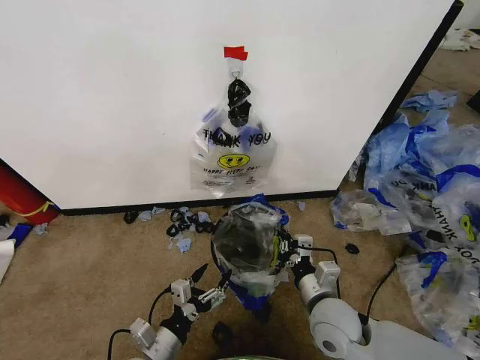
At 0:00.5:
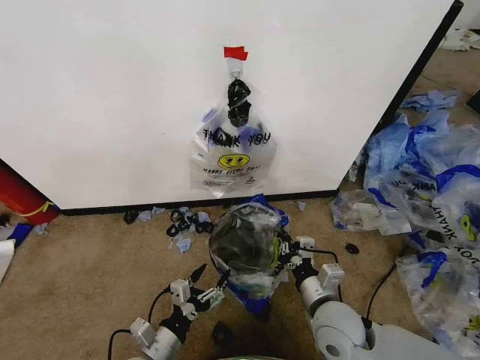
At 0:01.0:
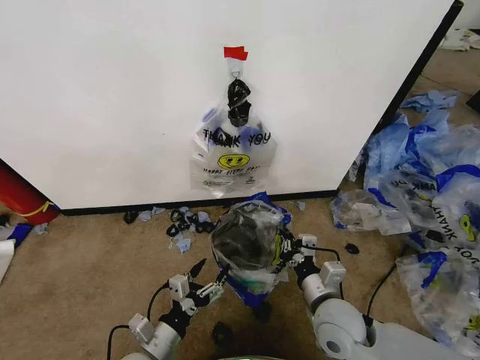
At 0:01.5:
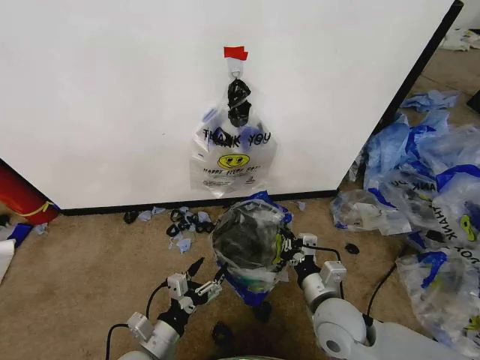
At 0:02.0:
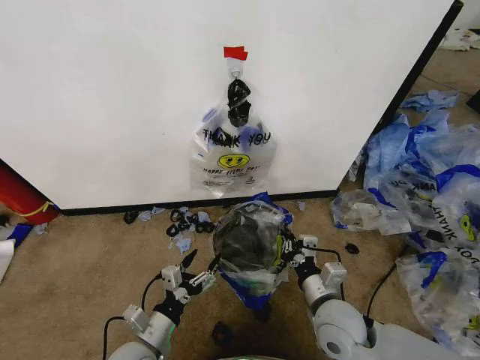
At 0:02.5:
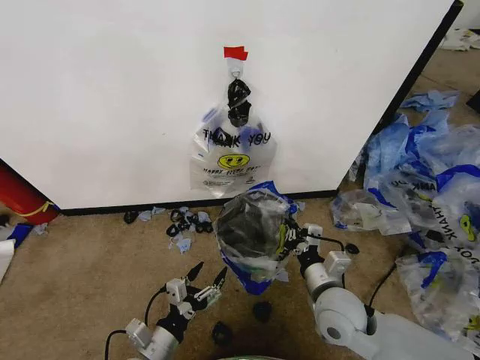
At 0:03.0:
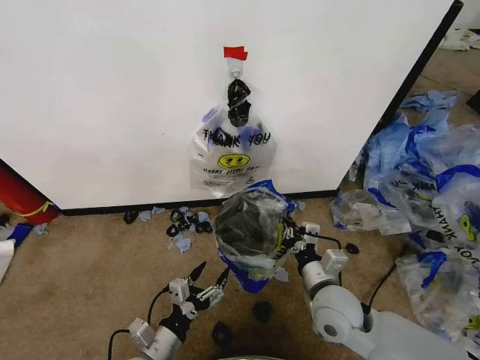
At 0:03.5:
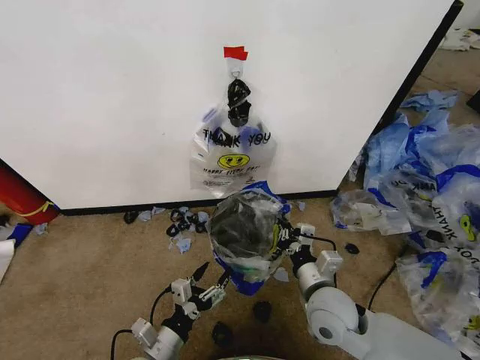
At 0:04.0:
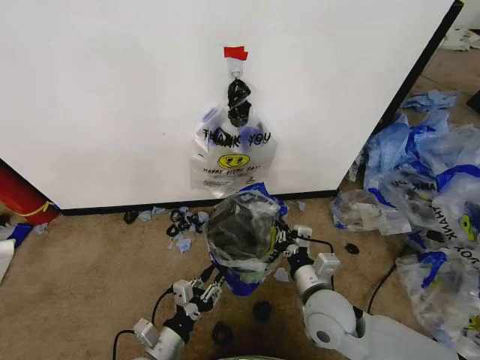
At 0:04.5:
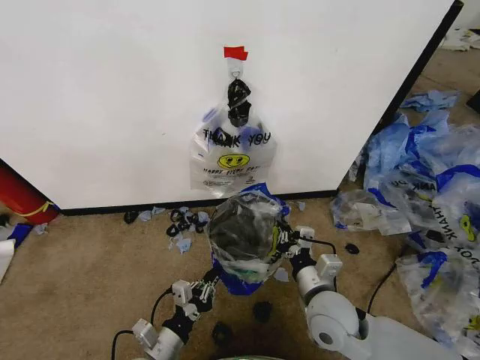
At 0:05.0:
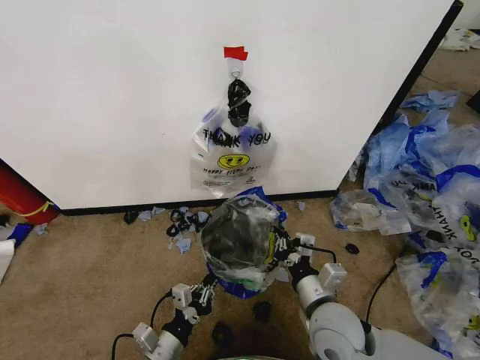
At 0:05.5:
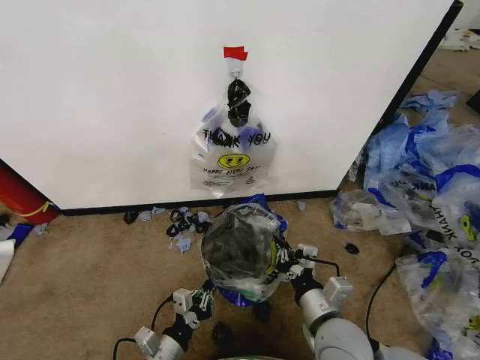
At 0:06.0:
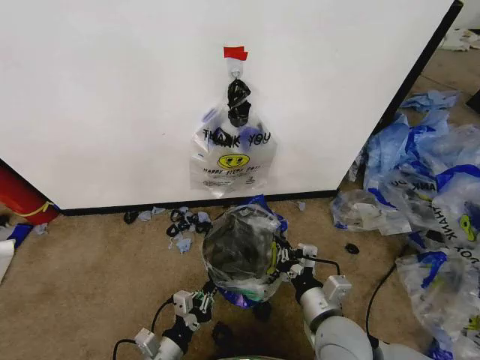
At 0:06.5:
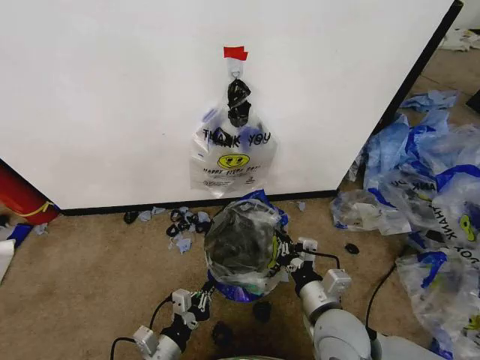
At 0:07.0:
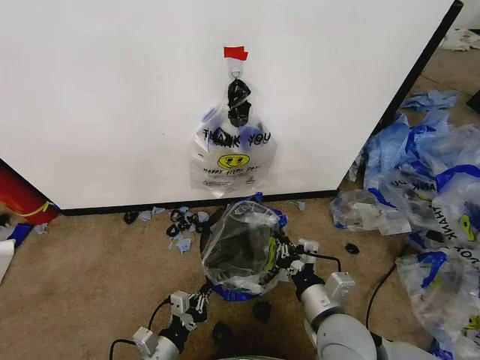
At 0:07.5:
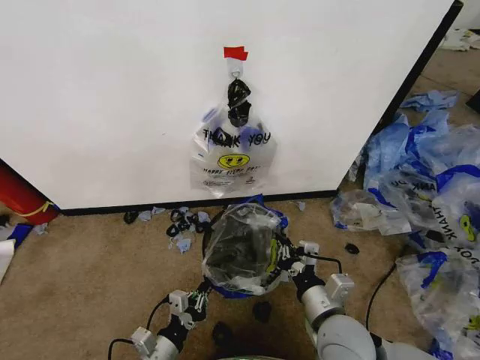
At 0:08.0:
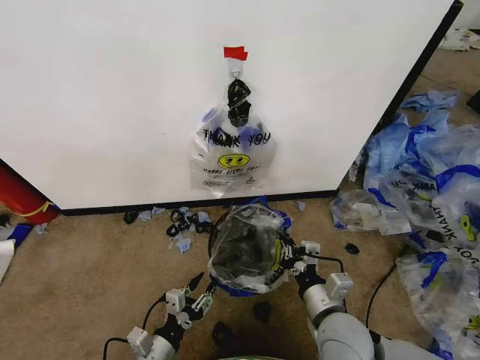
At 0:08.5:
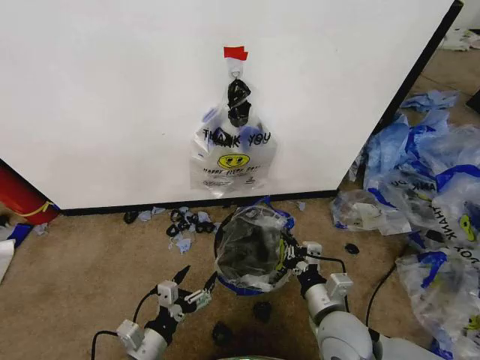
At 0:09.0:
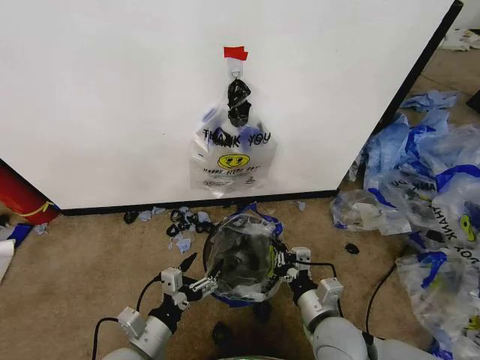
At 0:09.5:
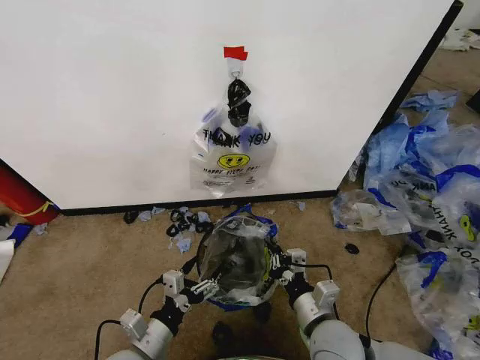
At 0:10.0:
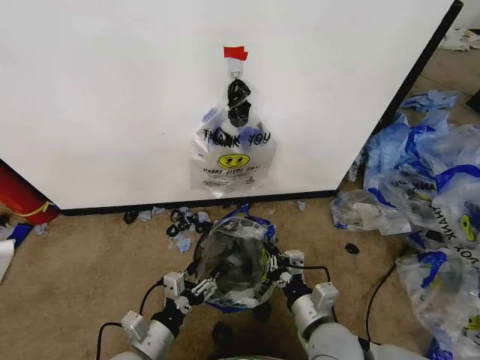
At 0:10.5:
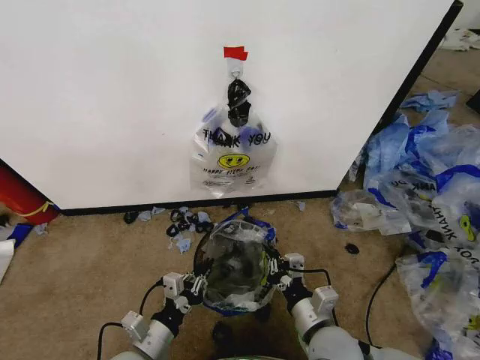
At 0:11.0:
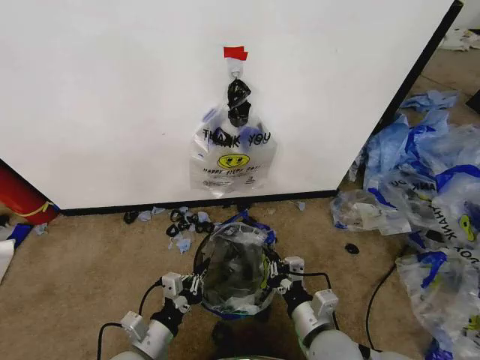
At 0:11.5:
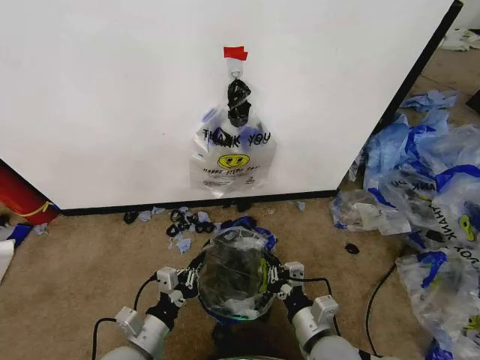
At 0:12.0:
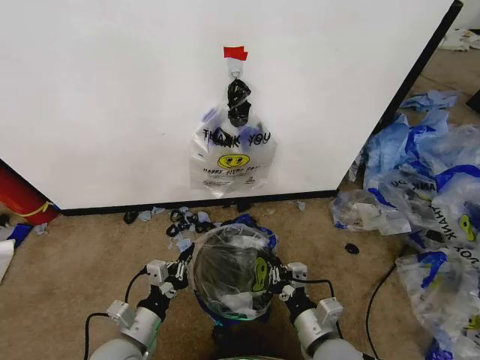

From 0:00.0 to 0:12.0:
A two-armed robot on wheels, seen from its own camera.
Task of the whole recording: Pick up the garbage bag from the wall and place it over the trash bin.
From 0:00.0 to 0:02.0: The grippers stay close to where they were, moving slightly.
From 0:02.0 to 0:04.0: The left gripper closes its fingers.
From 0:04.0 to 0:06.0: The right gripper shifts approximately 5 cm backward.
From 0:06.0 to 0:08.0: The left gripper opens up.
From 0:08.0 to 0:10.0: The left gripper moves upward, about 5 cm.
From 0:10.0 to 0:12.0: The left gripper closes its fingers.

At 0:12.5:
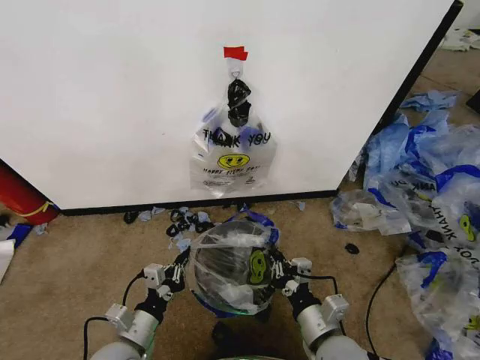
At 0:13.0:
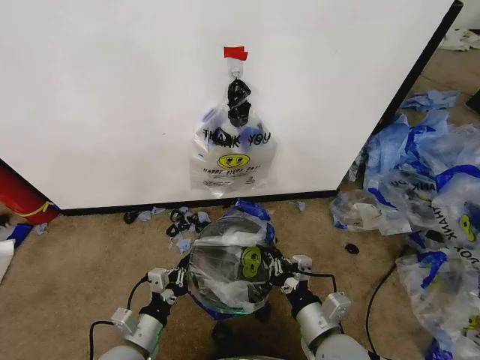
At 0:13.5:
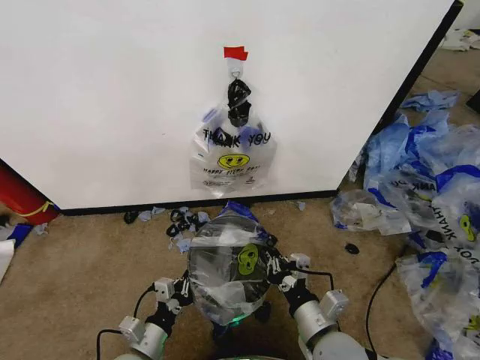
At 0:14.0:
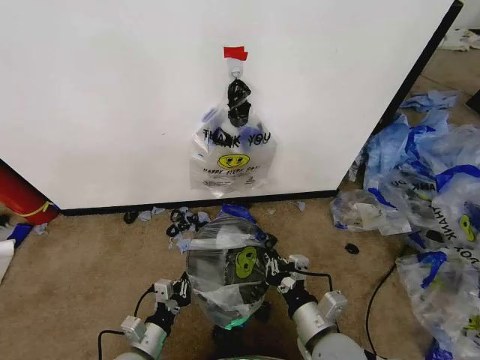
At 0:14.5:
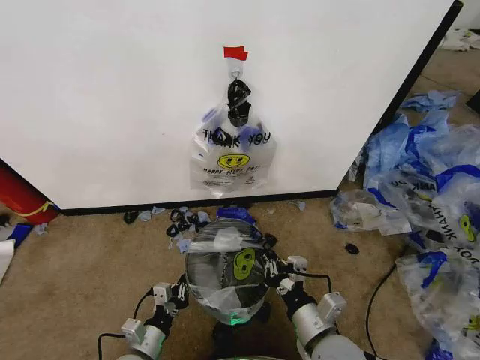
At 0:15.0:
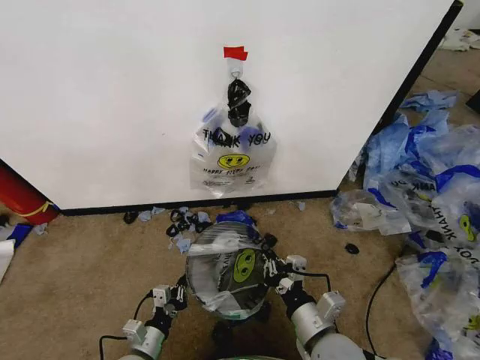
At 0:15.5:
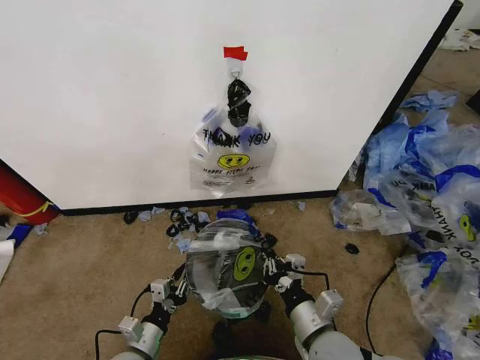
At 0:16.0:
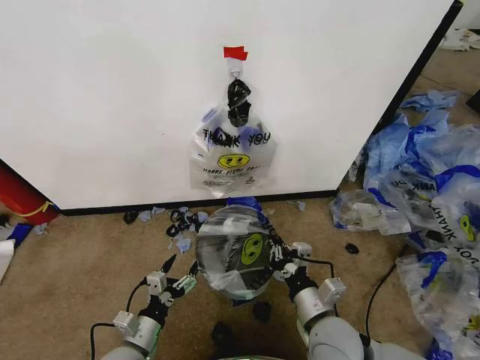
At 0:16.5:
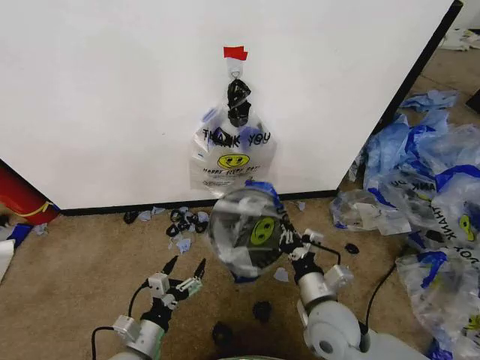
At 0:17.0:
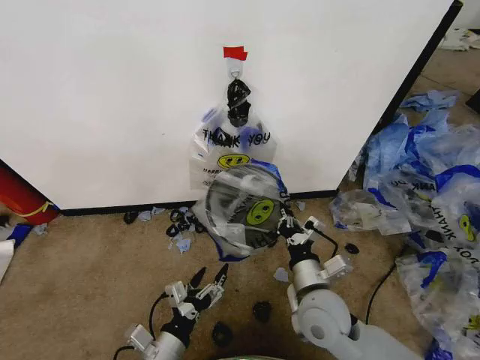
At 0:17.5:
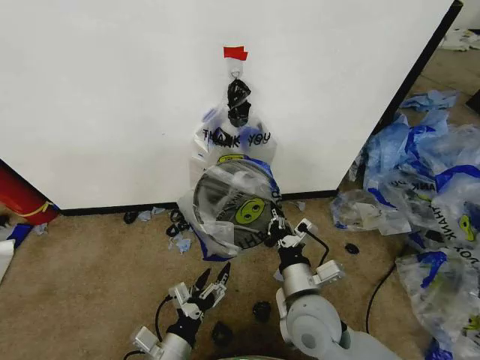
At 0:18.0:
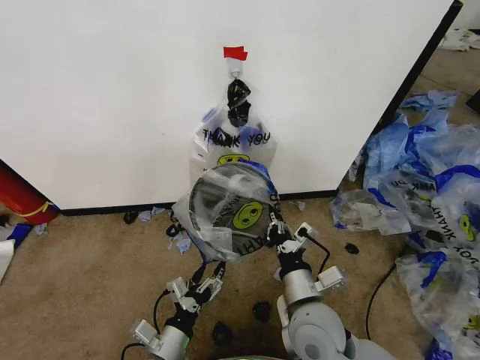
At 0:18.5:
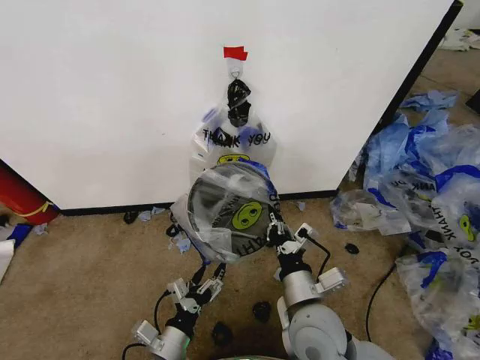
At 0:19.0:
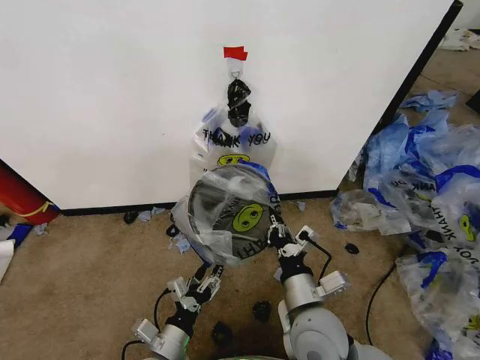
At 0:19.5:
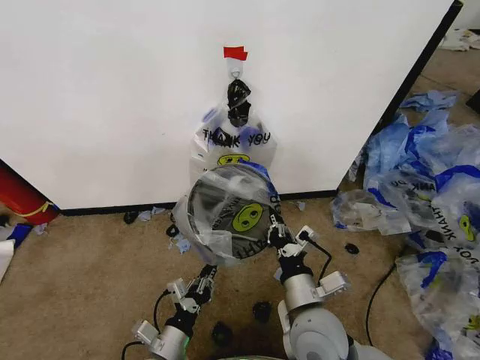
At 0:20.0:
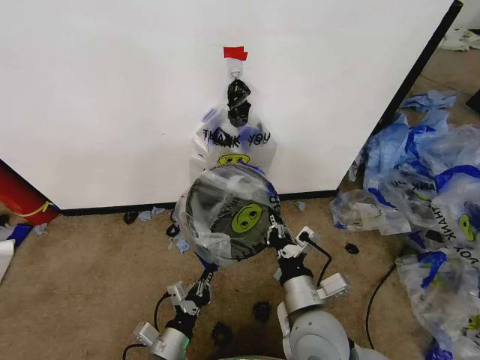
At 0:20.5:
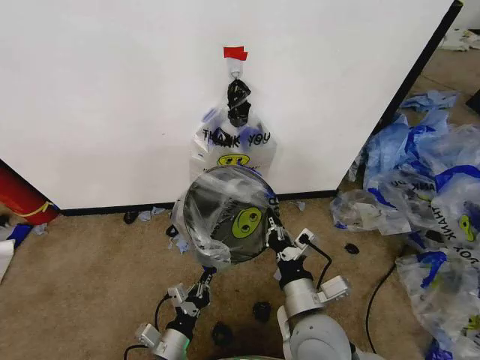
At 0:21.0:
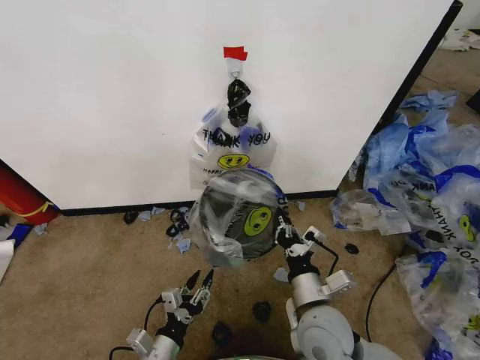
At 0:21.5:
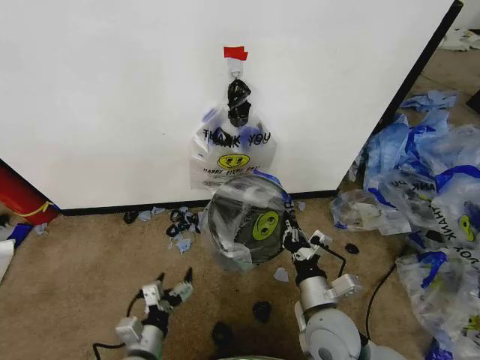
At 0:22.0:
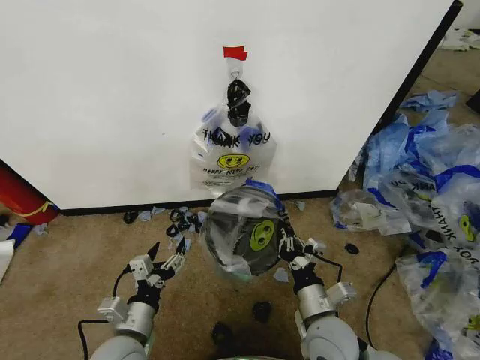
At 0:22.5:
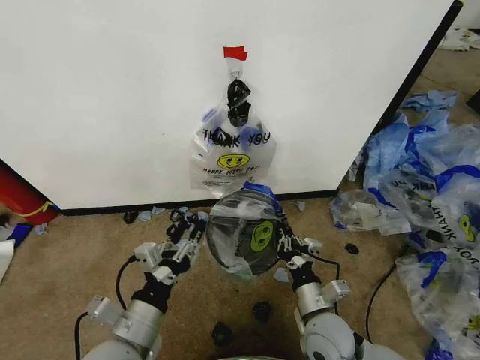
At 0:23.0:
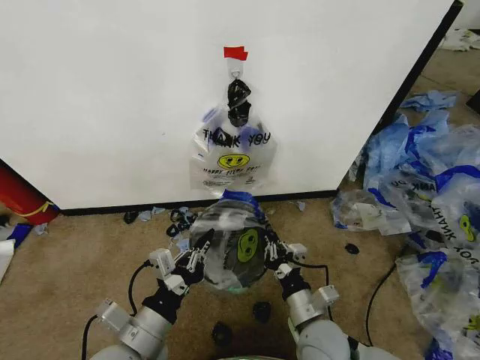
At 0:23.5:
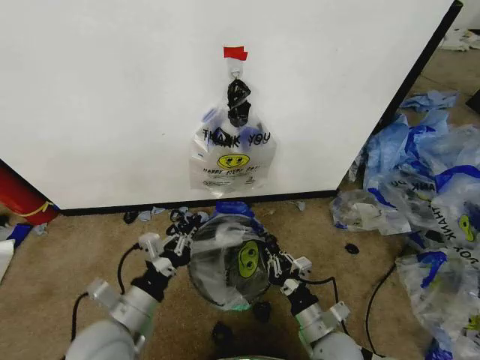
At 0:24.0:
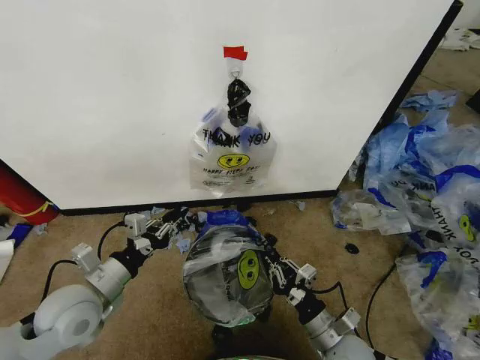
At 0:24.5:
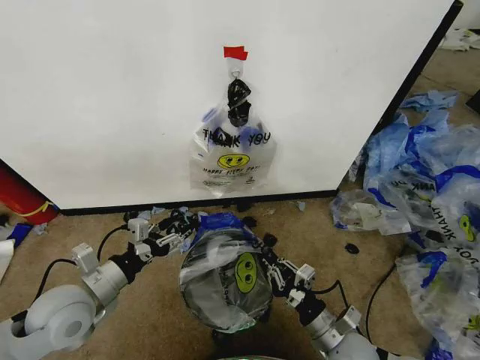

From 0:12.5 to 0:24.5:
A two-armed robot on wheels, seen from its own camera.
Task of the whole recording: Pick up the garbage bag from the wall and place it over the trash bin.
From 0:12.5 to 0:14.5: The left gripper travels downward by roughly 10 cm.
From 0:14.5 to 0:16.5: The right gripper is displaced forward by some 5 cm. The left gripper shifts by about 5 cm, and opens up.
From 0:16.5 to 0:18.5: The left gripper goes some 5 cm to the right. The right gripper moves approximately 5 cm.
From 0:18.5 to 0:20.5: The left gripper closes.
From 0:20.5 to 0:22.5: The right gripper goes approximately 10 cm downward. Meanwhile the left gripper travels upward by approximately 15 cm, and opens up.
From 0:22.5 to 0:24.5: The right gripper moves about 5 cm, while the left gripper heads to the left and forward, covering about 15 cm, and closes and opens again.

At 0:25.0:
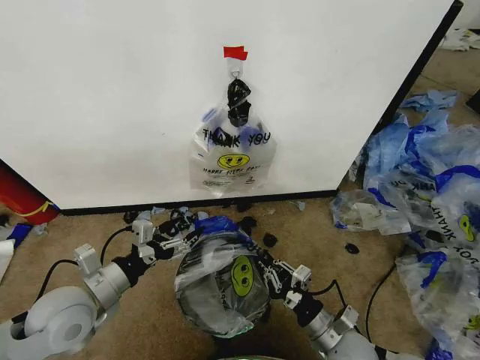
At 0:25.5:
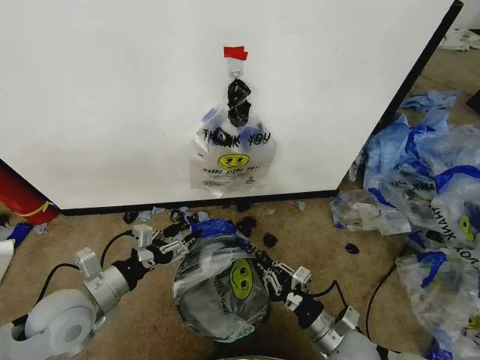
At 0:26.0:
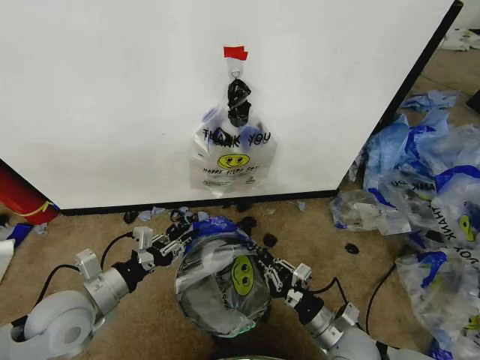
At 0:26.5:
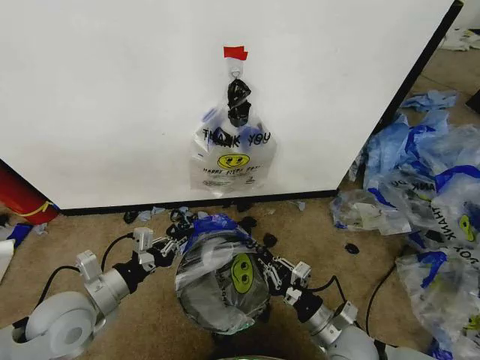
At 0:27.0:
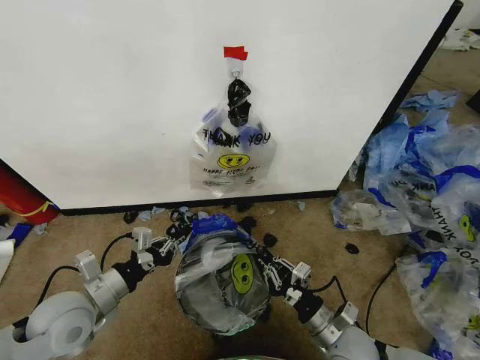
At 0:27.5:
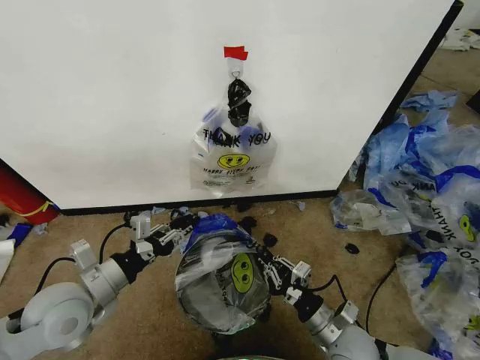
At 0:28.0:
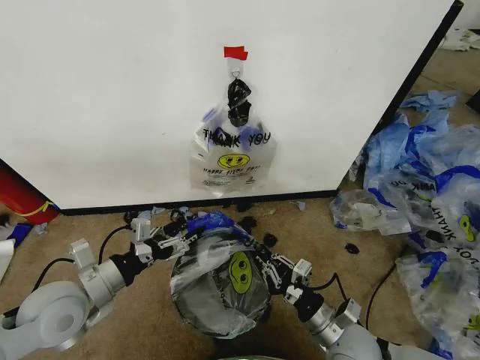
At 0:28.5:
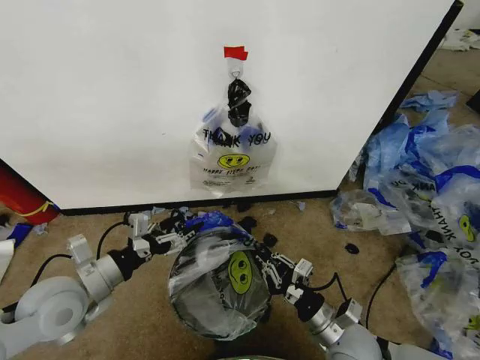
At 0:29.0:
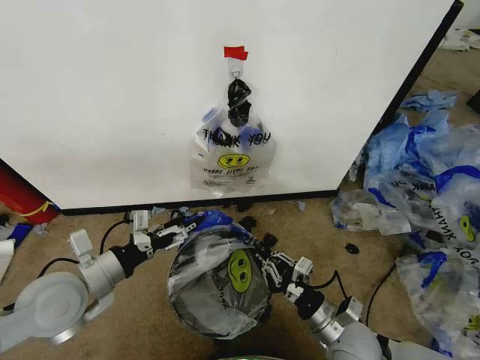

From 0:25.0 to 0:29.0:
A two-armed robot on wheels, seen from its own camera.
Task of the whole recording: Pick up the garbage bag from the wall and place it over the trash bin.
From 0:25.0 to 0:27.0: The left gripper closes its fingers.
From 0:27.0 to 0:29.0: The left gripper opens.
